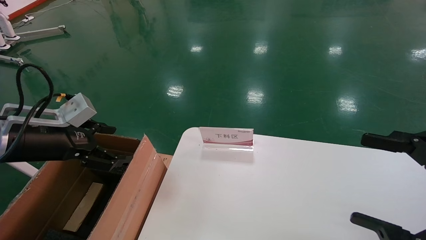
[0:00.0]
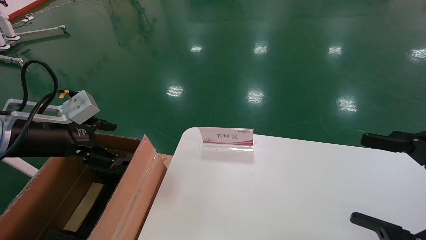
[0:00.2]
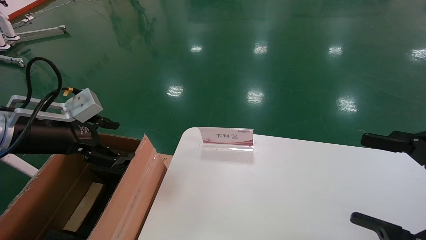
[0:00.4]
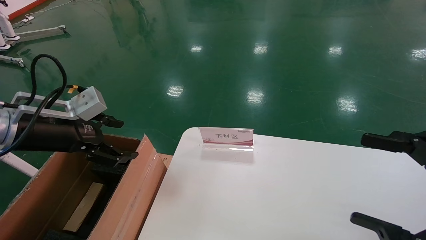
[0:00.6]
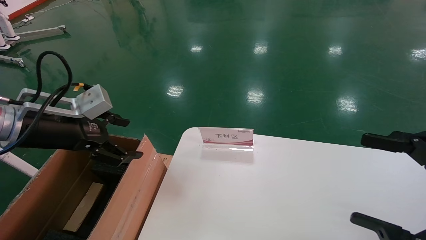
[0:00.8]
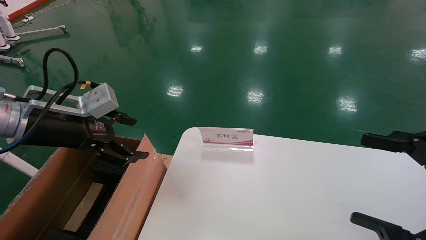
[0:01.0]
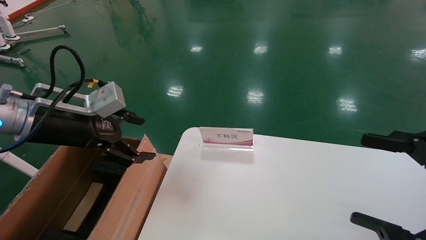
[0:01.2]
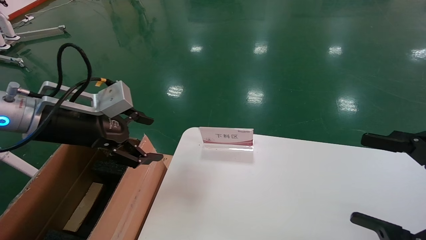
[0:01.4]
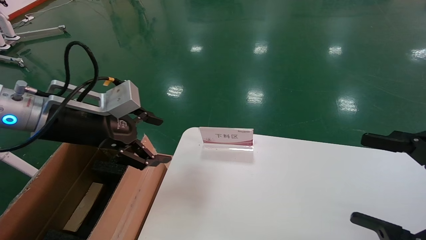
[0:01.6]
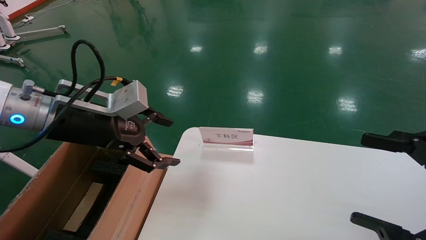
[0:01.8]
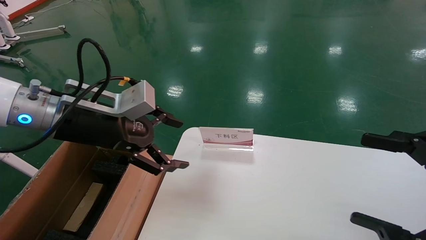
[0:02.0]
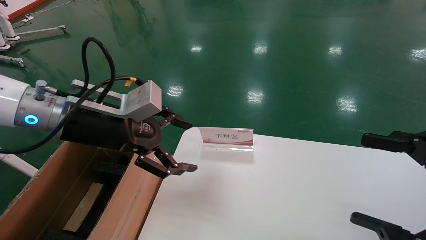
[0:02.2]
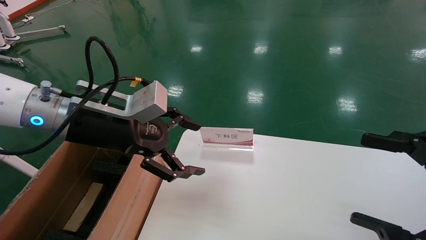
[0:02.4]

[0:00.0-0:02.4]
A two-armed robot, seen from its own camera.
Task of the whole recording: pick up the small cardboard box and load it into the large cardboard box.
0:00.0 to 0:01.2: The left gripper goes some 5 cm to the right.
0:01.2 to 0:02.4: The left gripper travels to the right by about 5 cm.
